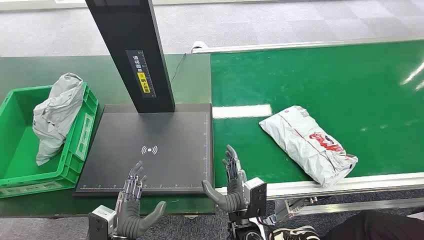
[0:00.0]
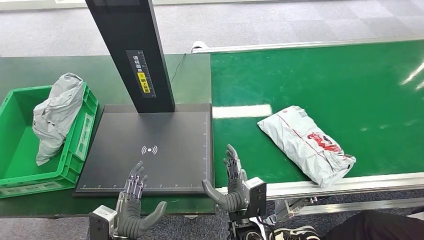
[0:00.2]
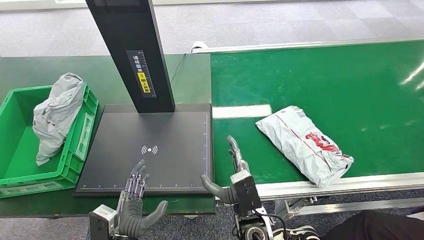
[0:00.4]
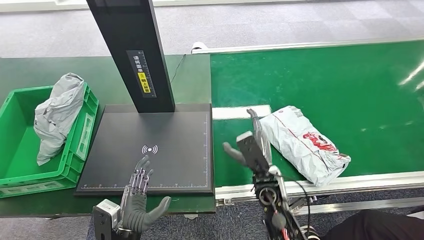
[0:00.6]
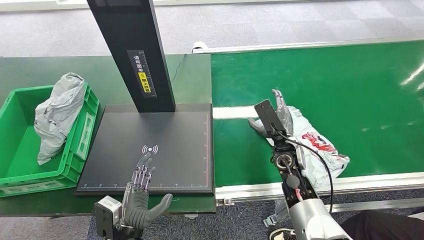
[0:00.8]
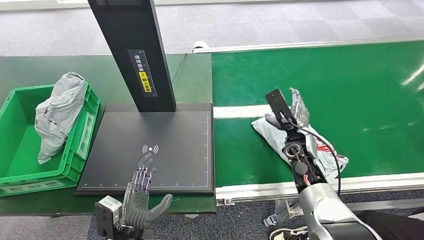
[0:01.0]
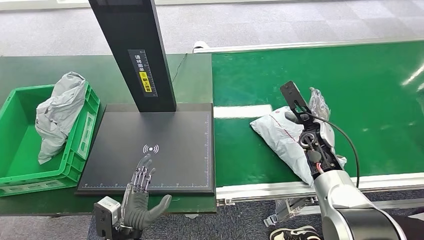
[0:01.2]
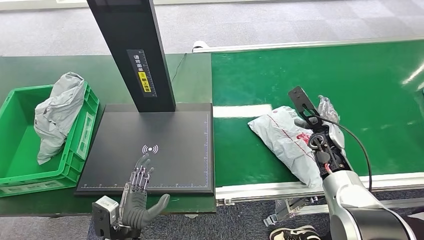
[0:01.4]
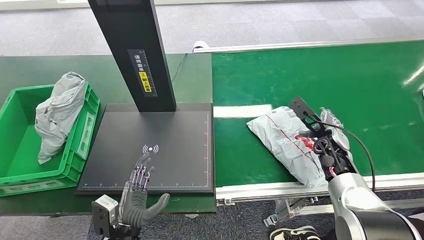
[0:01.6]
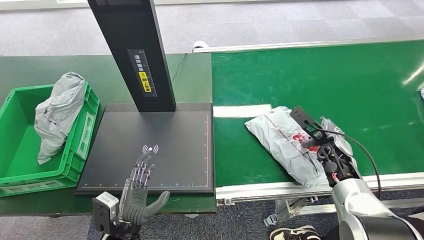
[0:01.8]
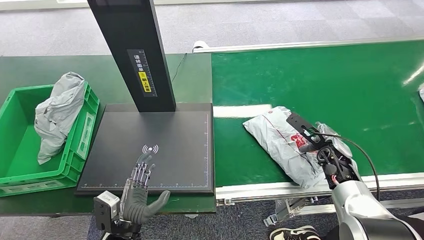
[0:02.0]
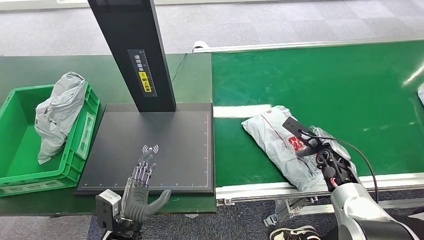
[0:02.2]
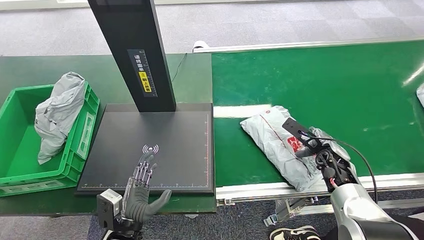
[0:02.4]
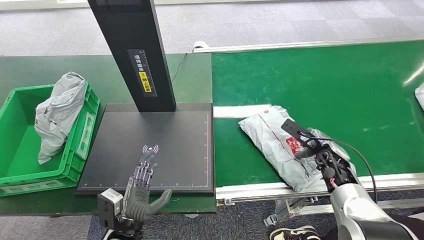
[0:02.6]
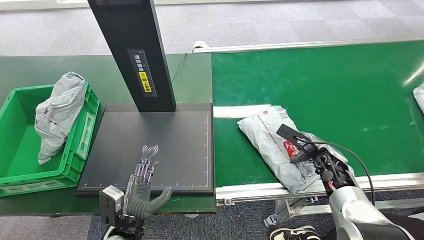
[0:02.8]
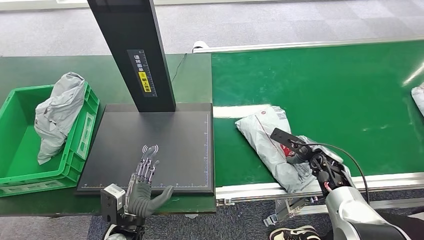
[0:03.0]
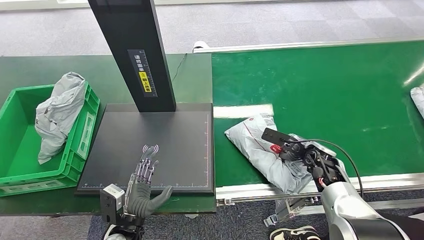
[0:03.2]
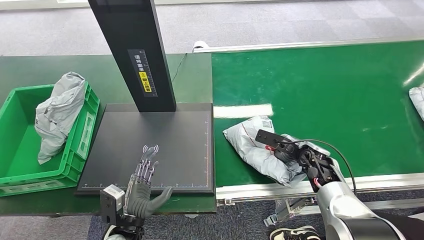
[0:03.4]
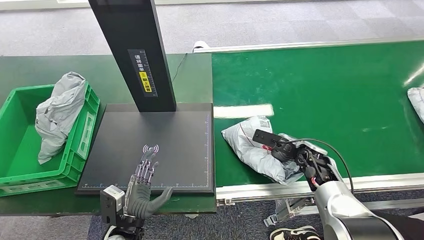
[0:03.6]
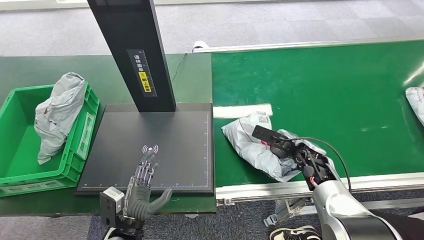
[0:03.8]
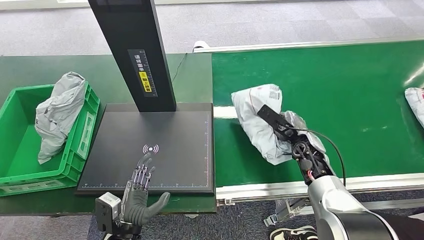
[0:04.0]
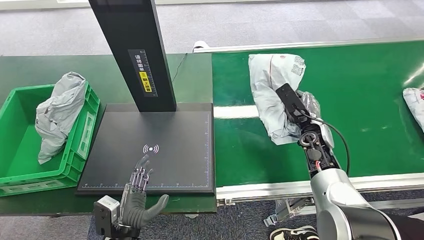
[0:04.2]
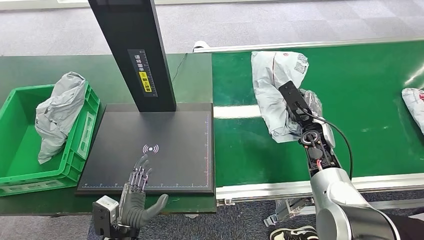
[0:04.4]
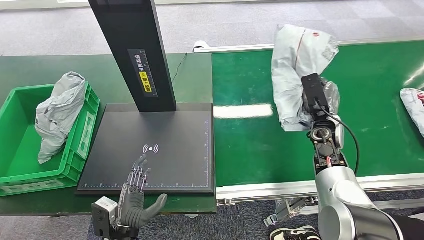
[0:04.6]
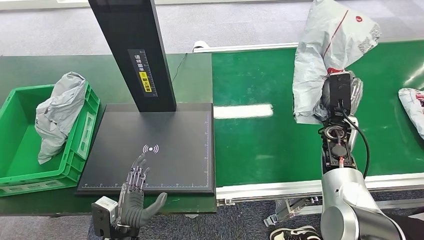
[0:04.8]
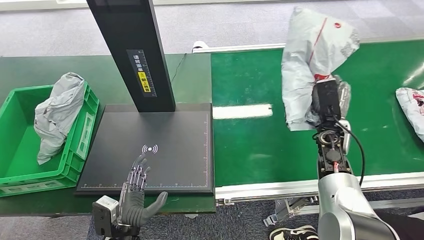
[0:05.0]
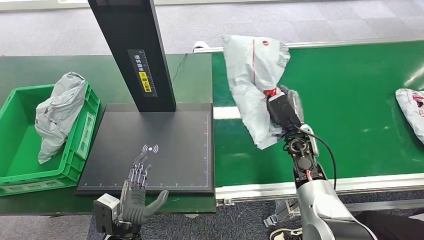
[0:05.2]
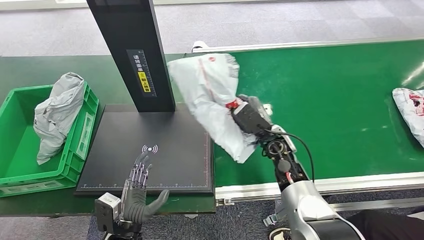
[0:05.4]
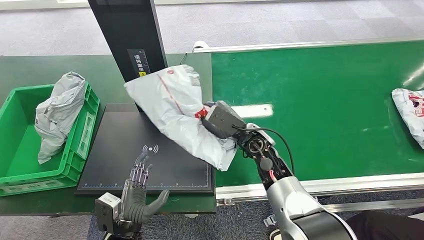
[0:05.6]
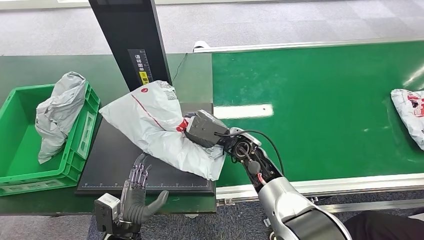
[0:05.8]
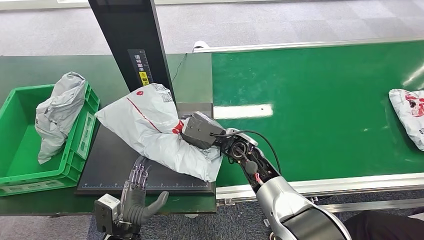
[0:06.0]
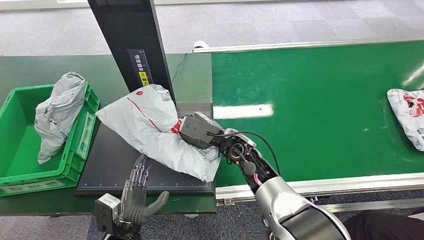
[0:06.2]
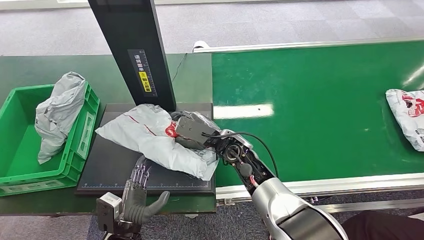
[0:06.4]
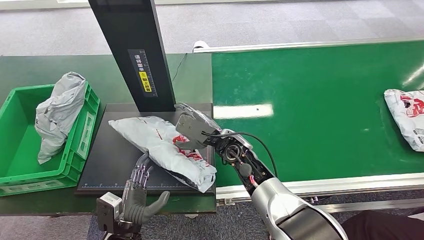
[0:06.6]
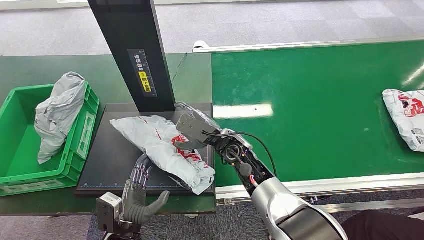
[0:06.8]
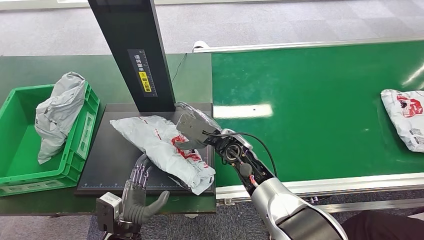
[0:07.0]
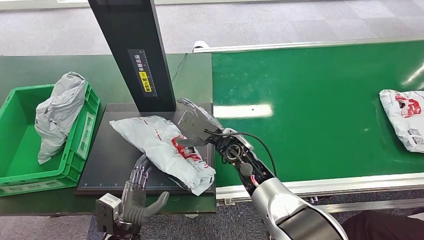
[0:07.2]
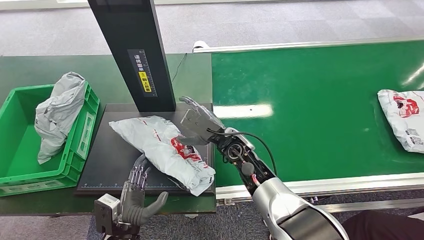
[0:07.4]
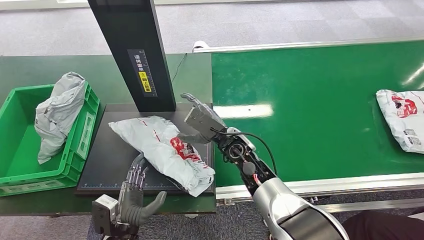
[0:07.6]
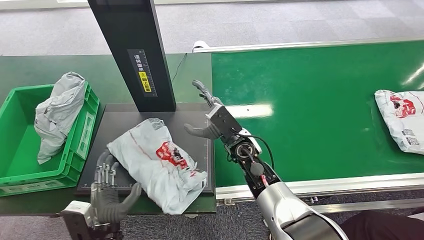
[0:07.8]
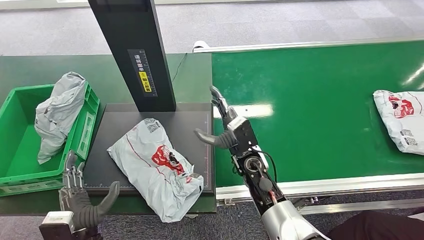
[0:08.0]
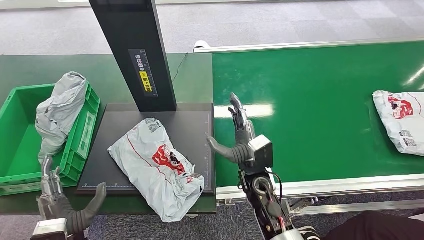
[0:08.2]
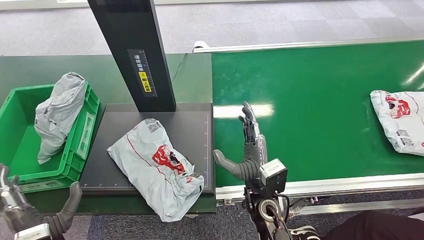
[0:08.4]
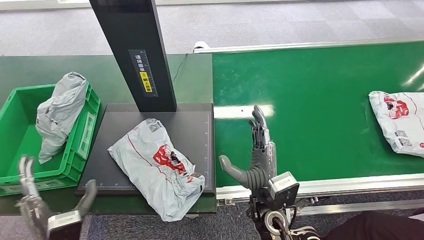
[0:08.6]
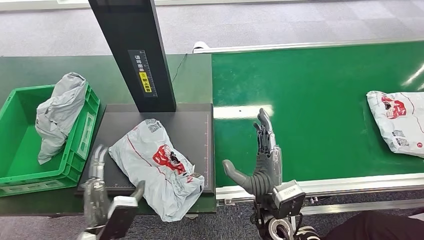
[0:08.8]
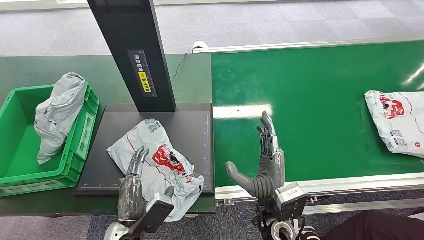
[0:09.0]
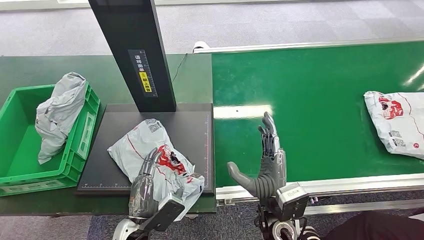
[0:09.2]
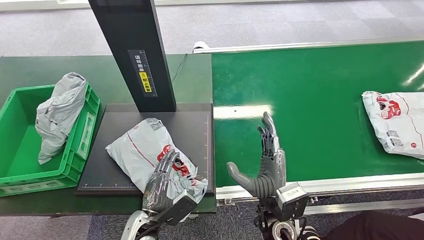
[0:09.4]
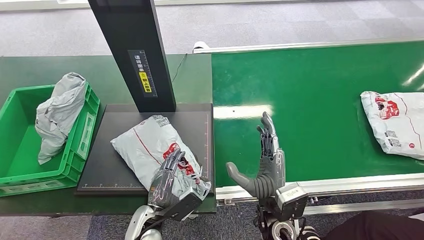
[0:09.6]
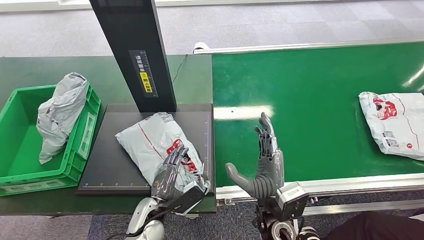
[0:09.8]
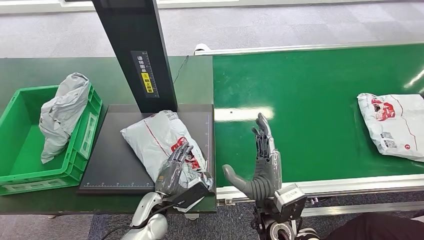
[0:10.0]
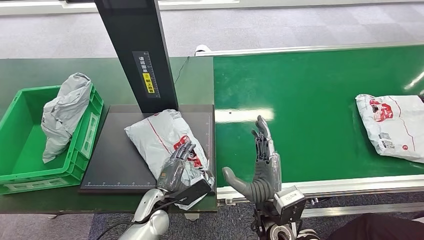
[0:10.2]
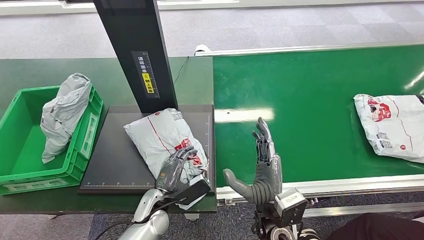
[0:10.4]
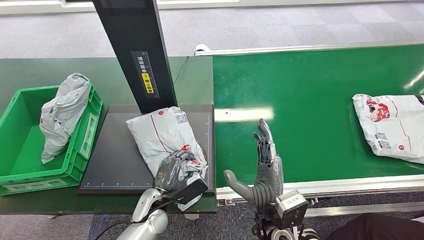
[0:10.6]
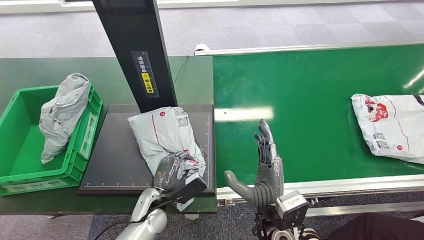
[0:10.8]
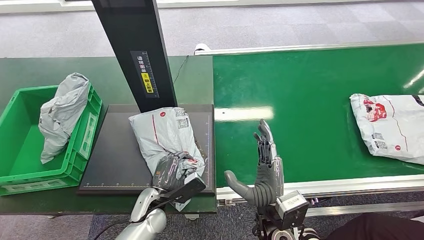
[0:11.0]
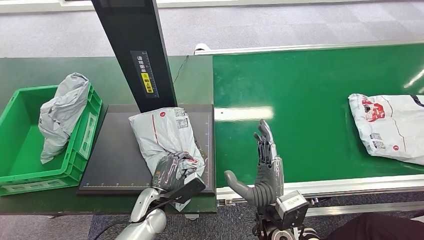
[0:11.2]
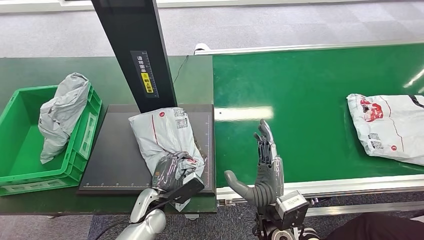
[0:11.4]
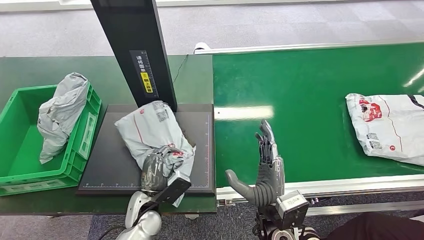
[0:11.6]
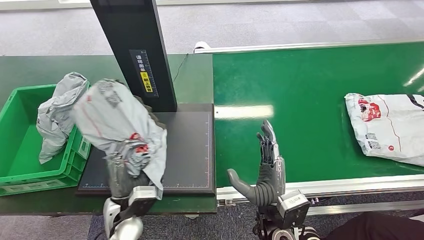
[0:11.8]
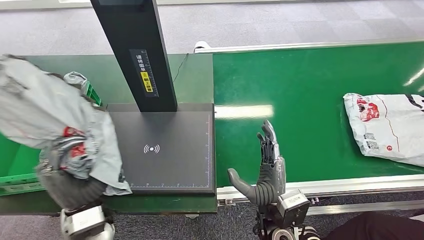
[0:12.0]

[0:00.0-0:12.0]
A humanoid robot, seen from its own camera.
Step, 0:00.0 to 0:04.6: Pick up the package from the conveyor belt.
Step, 0:04.8 to 0:07.6: Place the package onto the inbound machine.
0:01.6 to 0:03.0: The right hand moves some 5 cm.
0:03.0 to 0:04.4: The right hand is displaced upward and forward by about 10 cm.
0:06.0 to 0:07.6: The hands move only a little.
0:07.6 to 0:09.0: The right hand goes approximately 15 cm backward. Meanwhile the left hand moves about 10 cm to the left and comes back.

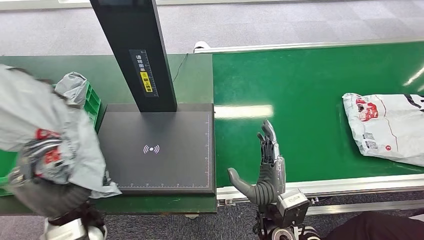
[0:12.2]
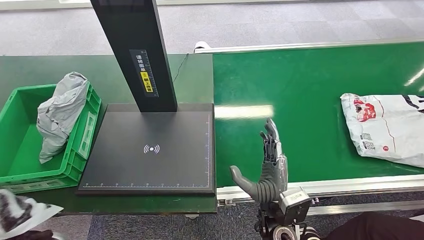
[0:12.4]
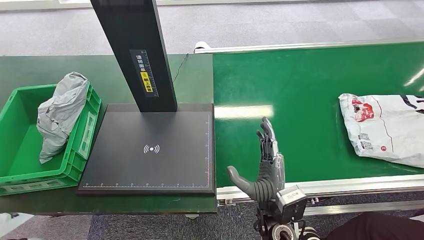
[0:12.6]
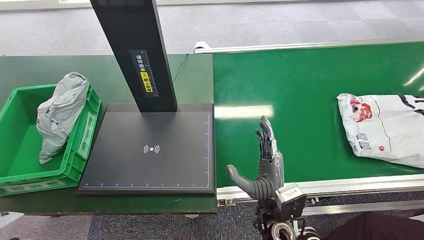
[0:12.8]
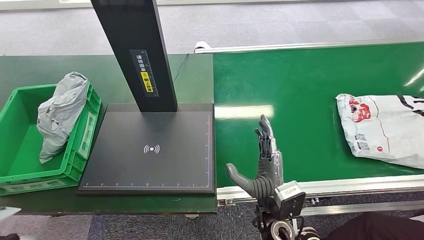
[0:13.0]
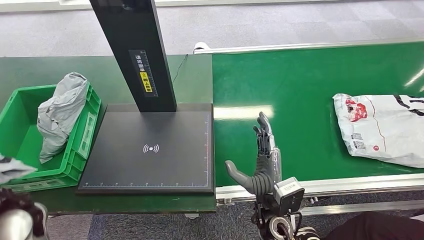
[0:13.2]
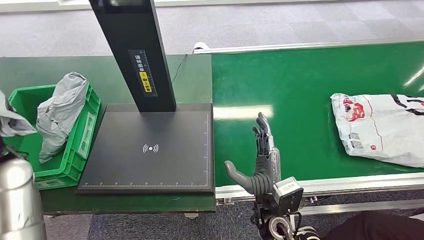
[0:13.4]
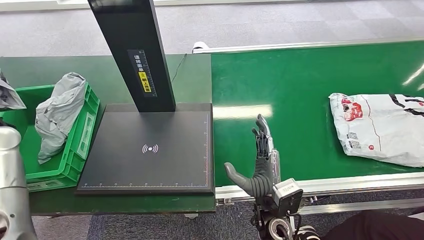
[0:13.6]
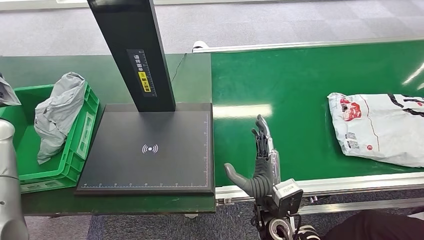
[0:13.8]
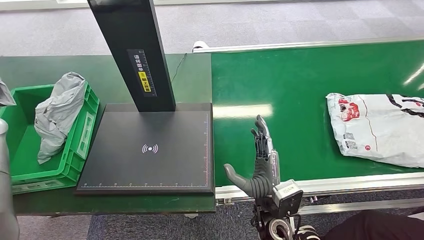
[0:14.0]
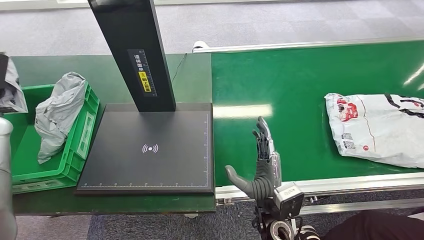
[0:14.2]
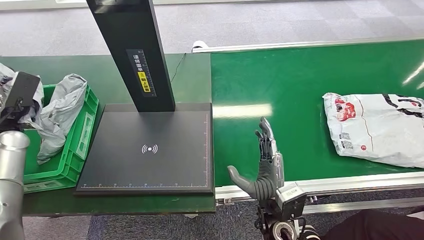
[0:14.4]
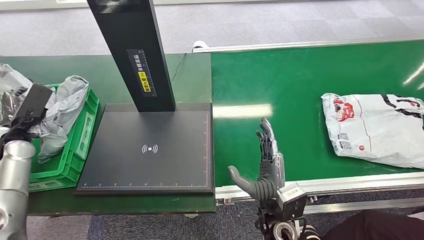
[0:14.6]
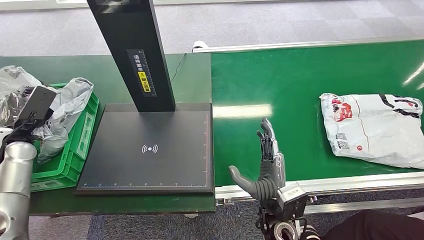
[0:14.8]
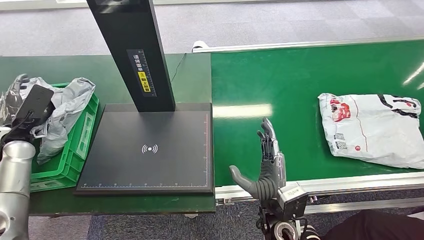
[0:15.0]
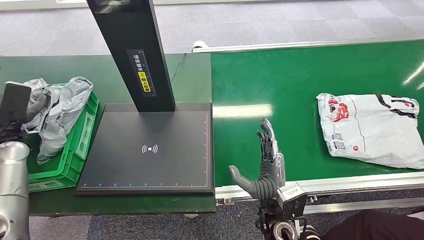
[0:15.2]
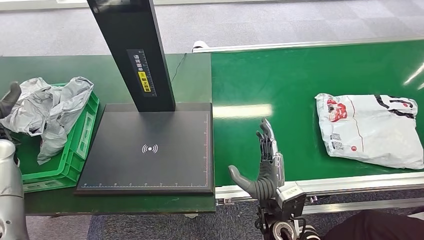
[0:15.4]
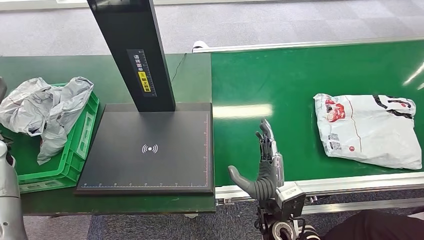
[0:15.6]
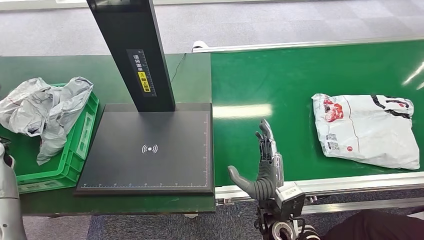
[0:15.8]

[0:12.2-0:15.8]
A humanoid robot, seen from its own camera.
Step, 0:12.6 to 0:15.8: Place the package into the parcel locker.
